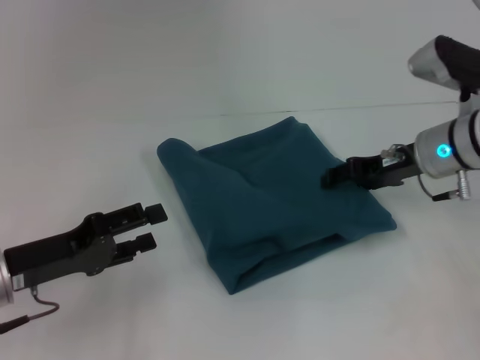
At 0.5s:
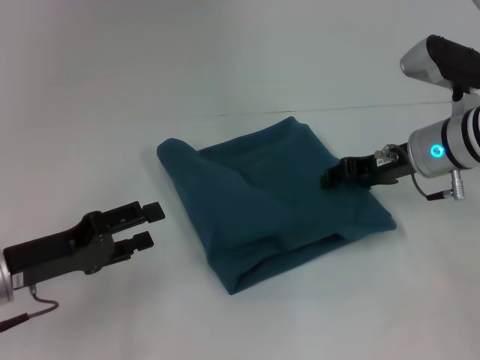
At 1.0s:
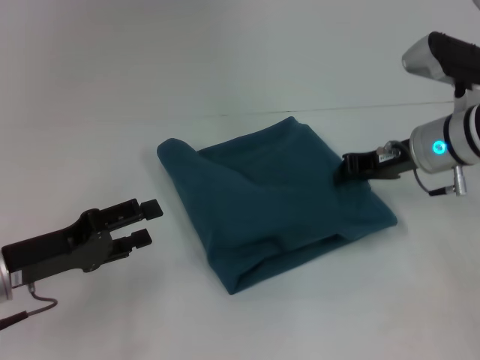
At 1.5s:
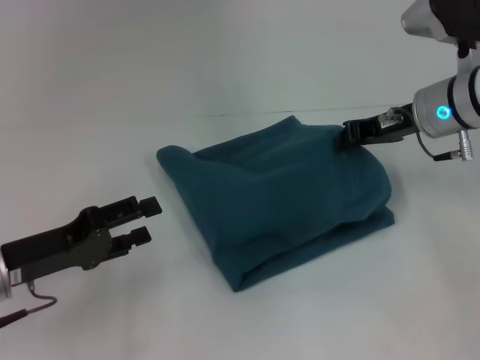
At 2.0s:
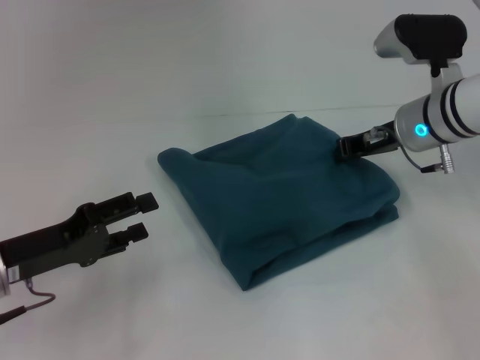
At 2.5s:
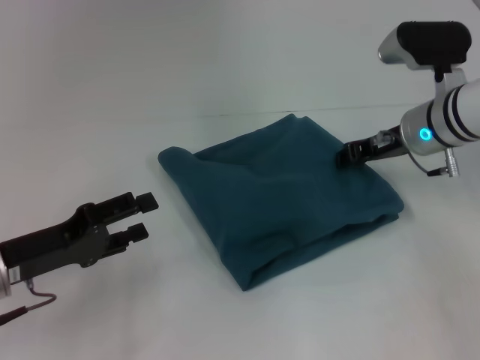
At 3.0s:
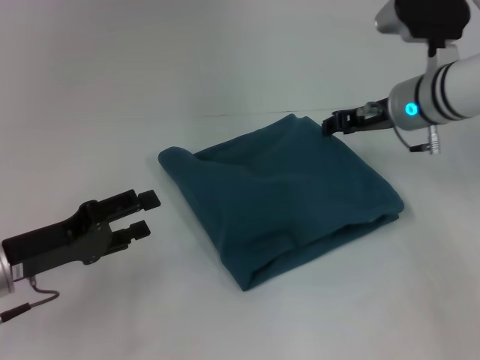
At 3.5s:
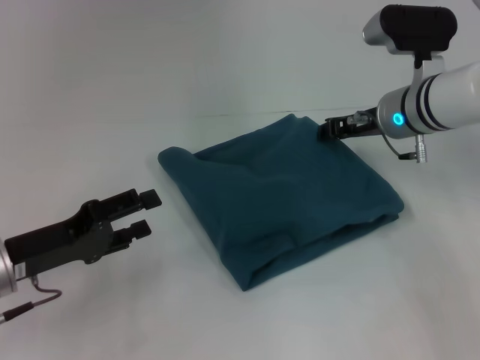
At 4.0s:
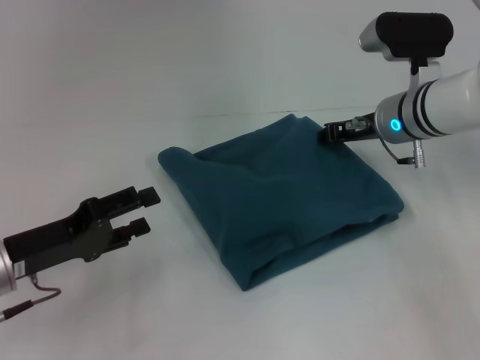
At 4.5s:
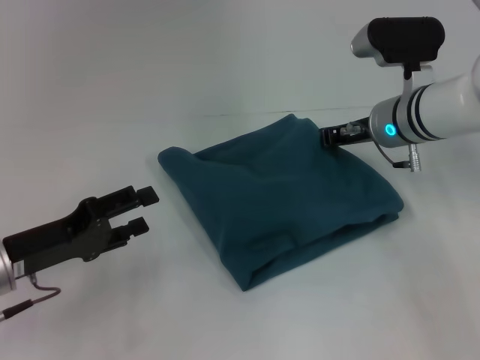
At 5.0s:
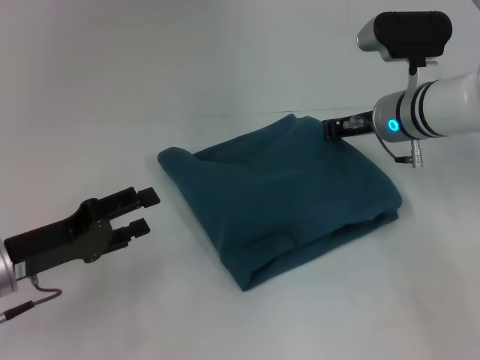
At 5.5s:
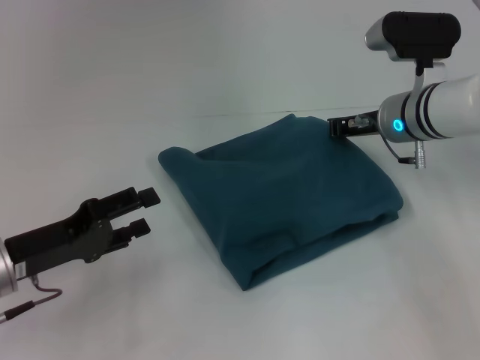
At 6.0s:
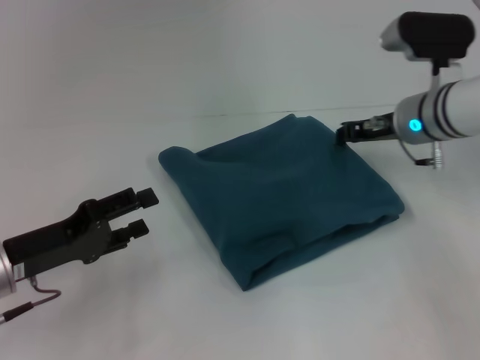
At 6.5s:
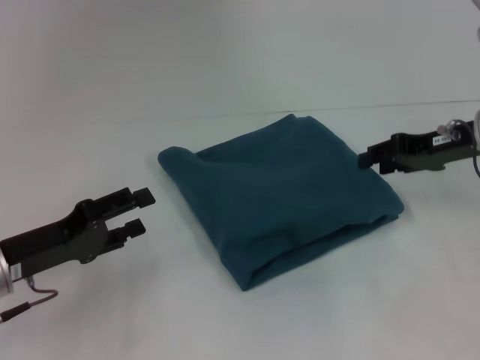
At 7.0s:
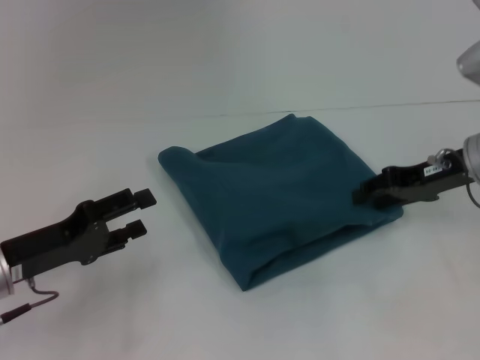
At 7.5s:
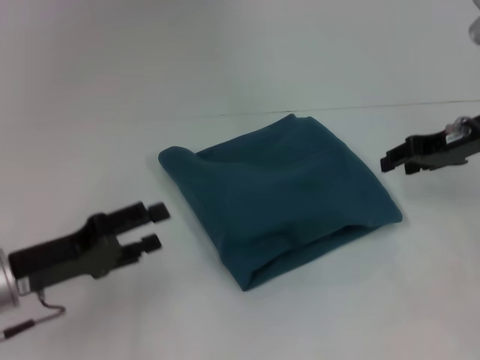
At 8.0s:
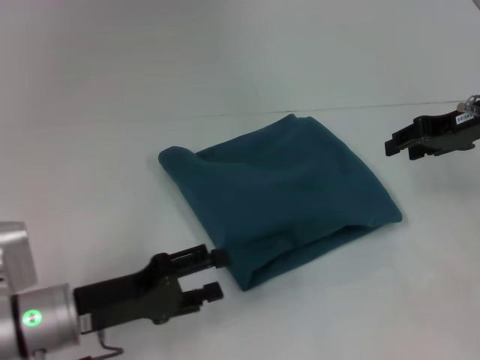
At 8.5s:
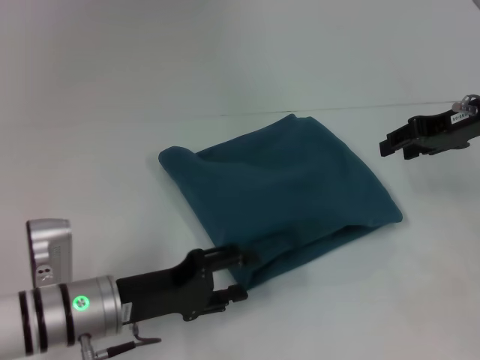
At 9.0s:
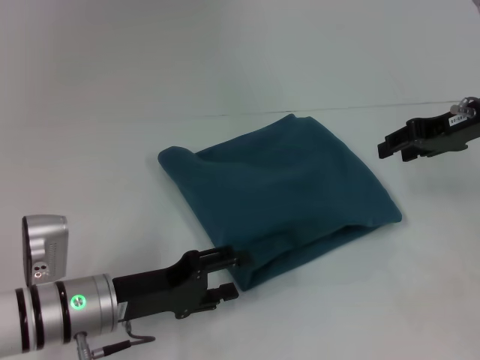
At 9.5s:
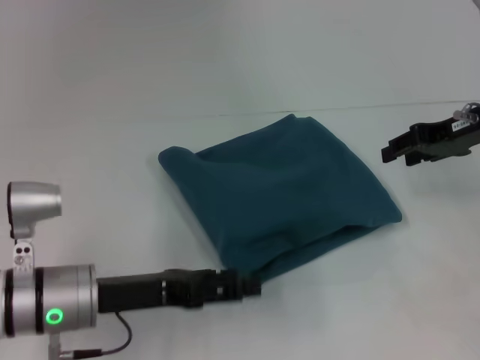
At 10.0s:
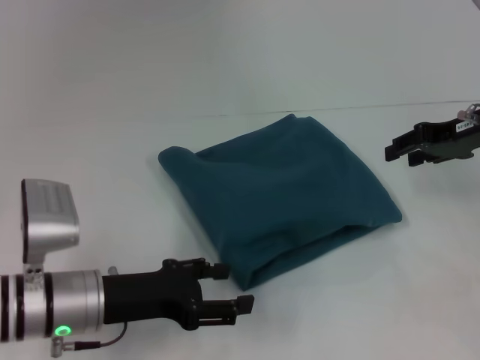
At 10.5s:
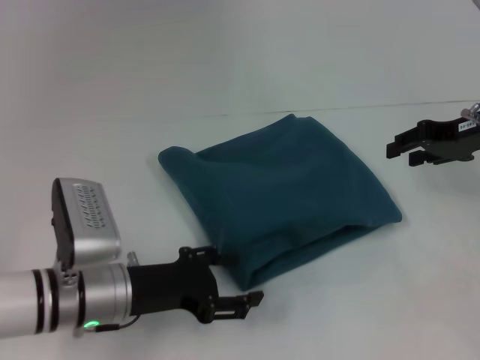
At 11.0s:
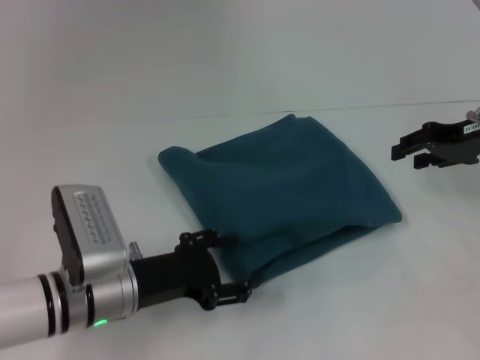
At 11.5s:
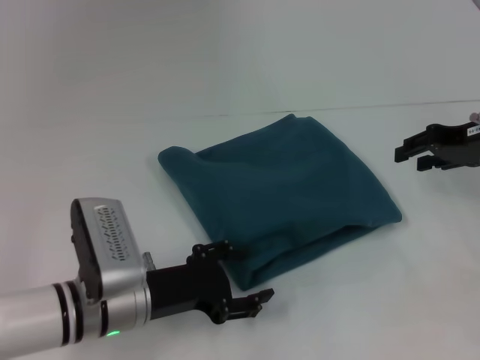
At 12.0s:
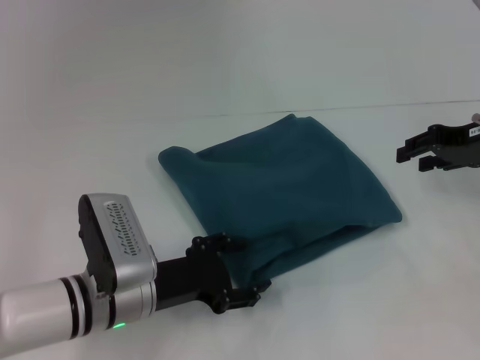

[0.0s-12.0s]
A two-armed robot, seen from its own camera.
0.0s to 2.0s: The right gripper closes.
2.0s to 4.0s: The right gripper opens.
4.0s to 6.0s: The right gripper closes its fingers.
6.0s to 8.0s: The left gripper goes some 5 cm to the right. Meanwhile the right gripper shifts roughly 10 cm to the right and upward, and opens its fingers.
10.0s to 12.0s: The left gripper ends up approximately 5 cm from where it was.

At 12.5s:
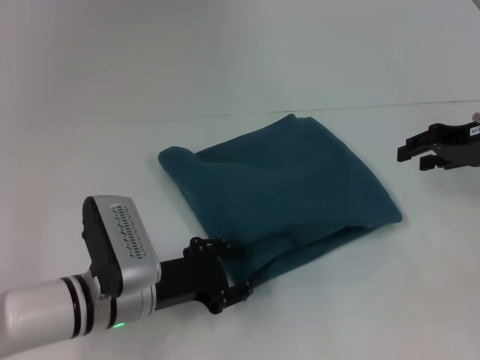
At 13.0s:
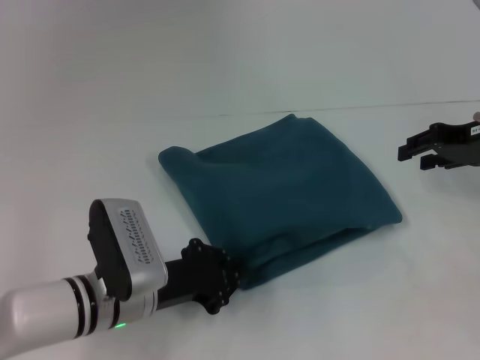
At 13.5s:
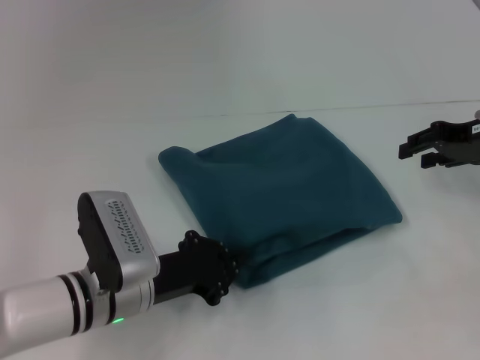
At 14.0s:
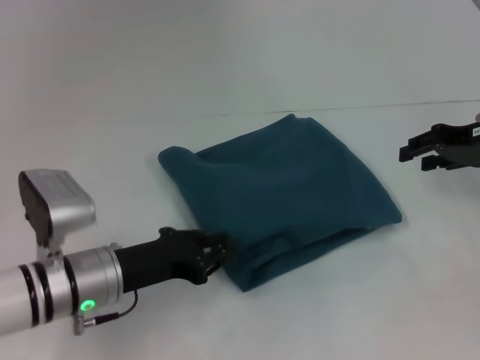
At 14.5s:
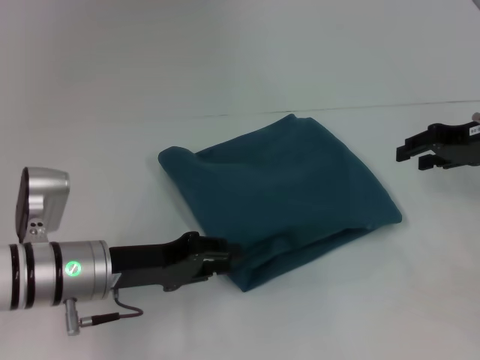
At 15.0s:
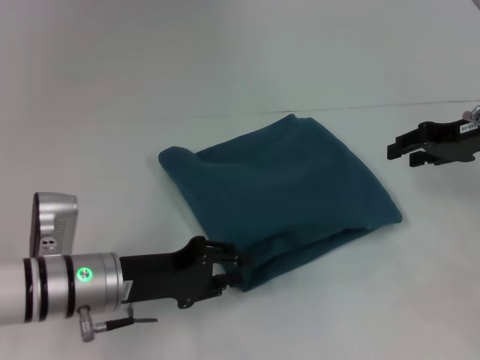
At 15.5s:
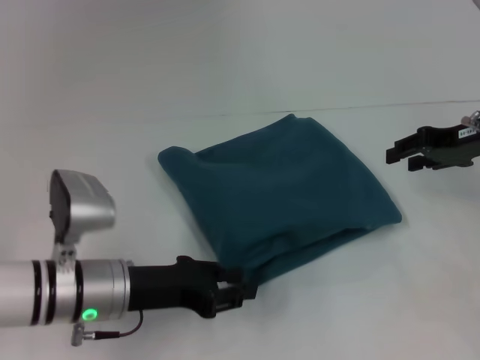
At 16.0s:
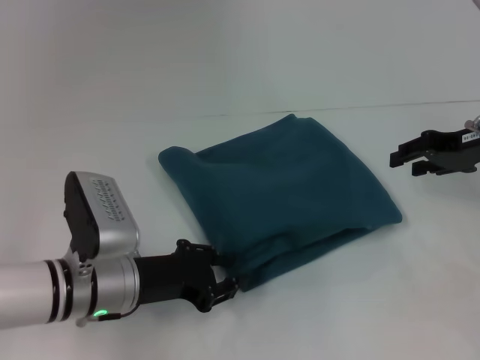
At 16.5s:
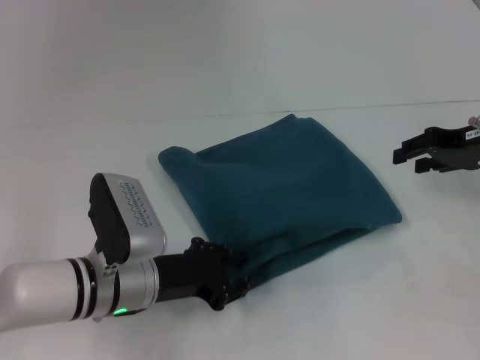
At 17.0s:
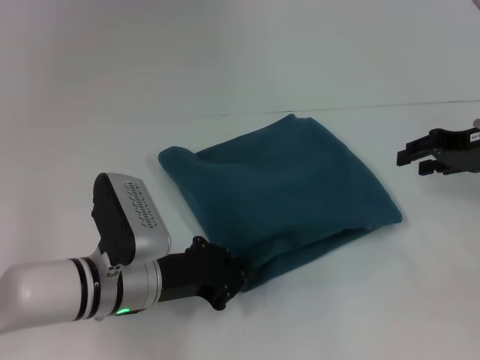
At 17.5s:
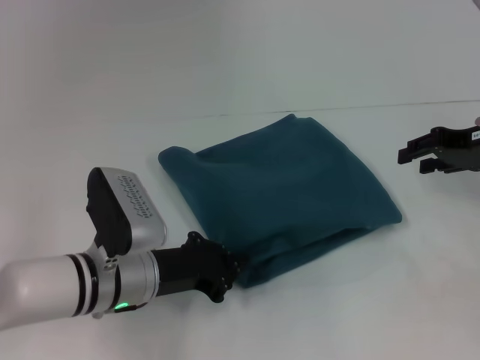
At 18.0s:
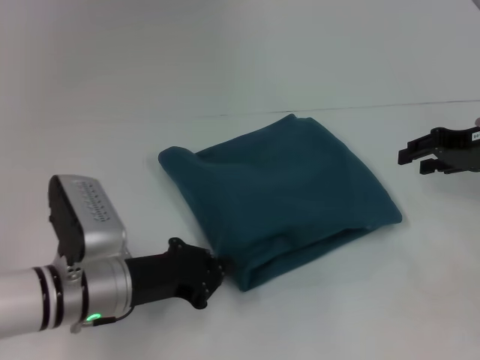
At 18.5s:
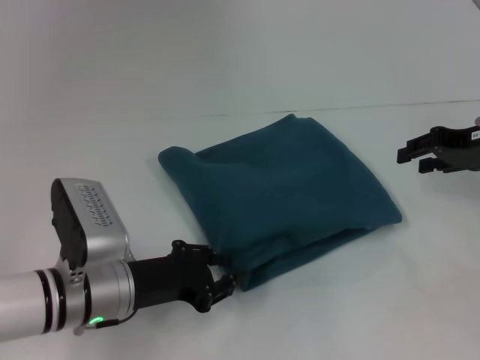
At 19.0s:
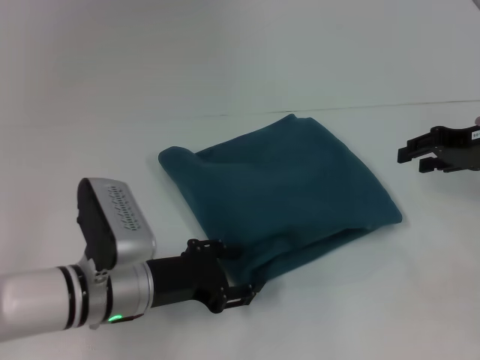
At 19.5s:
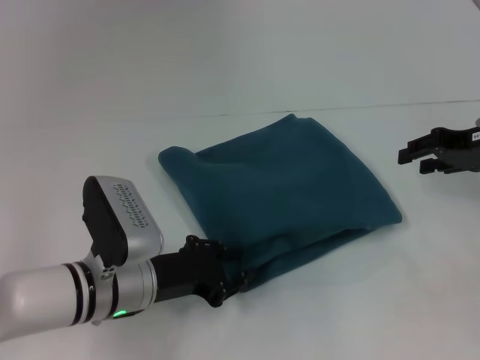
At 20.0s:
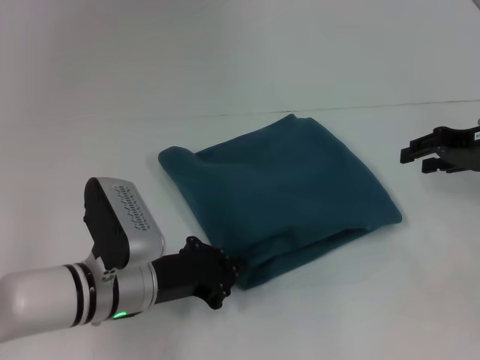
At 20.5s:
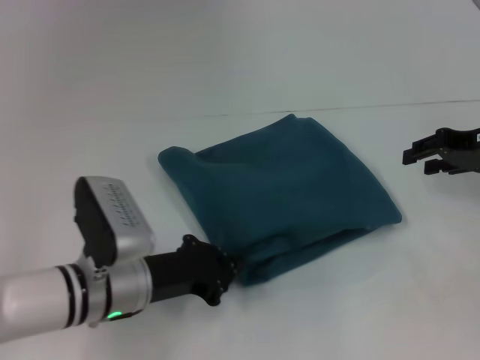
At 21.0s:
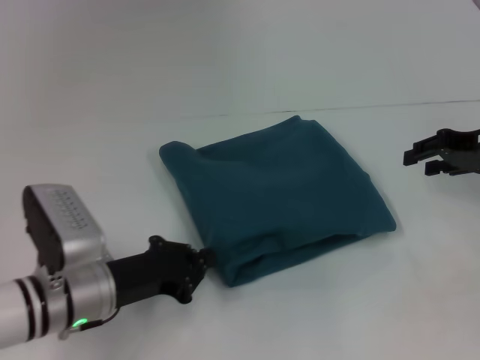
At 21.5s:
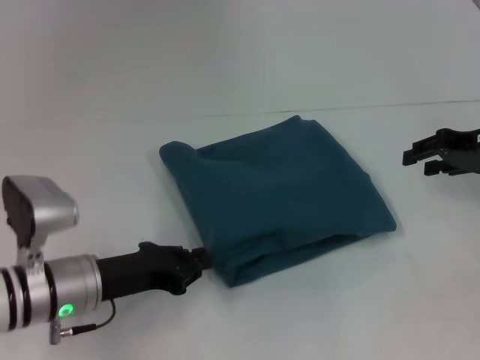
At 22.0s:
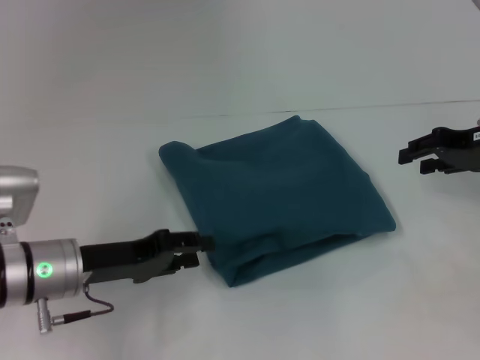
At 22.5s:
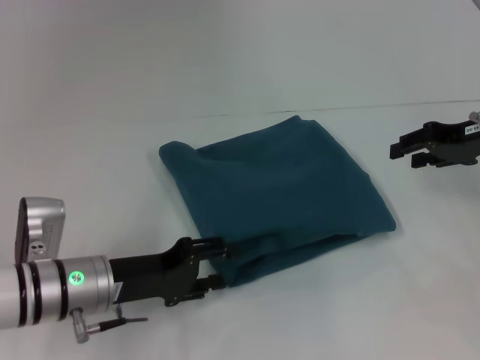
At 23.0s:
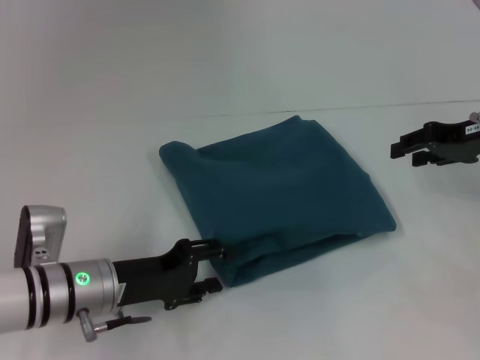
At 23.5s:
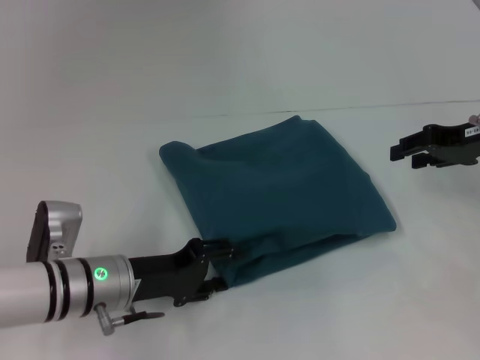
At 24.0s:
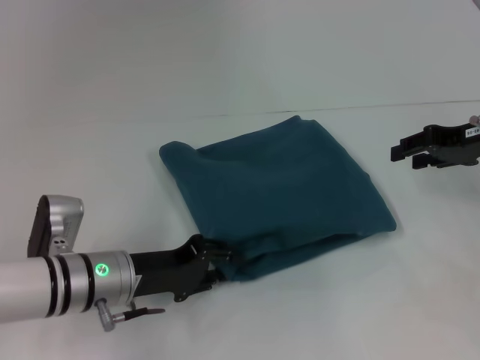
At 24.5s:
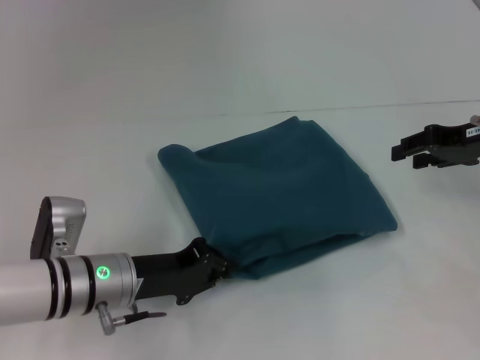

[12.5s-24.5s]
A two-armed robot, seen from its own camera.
12.5s to 14.5s: The left gripper ends up approximately 5 cm from where it was, and closes.
14.5s to 16.5s: The left gripper changes place by roughly 5 cm.
16.5s to 18.5s: The grippers stay close to where they were, moving slightly.
18.5s to 20.5s: The left gripper opens, then closes again.
20.5s to 22.5s: The left gripper opens up.
22.5s to 24.5s: The left gripper closes up.

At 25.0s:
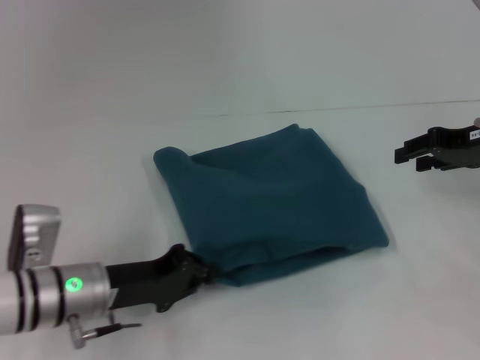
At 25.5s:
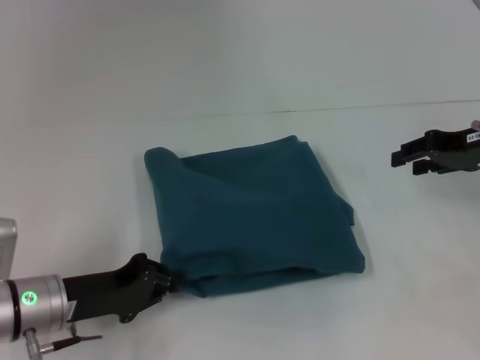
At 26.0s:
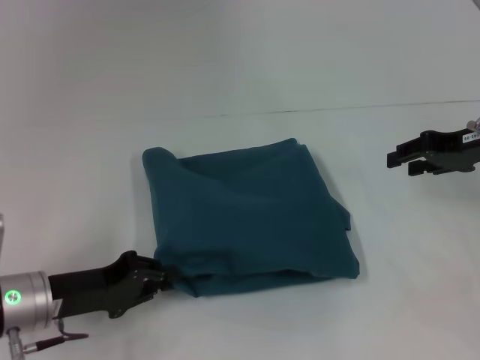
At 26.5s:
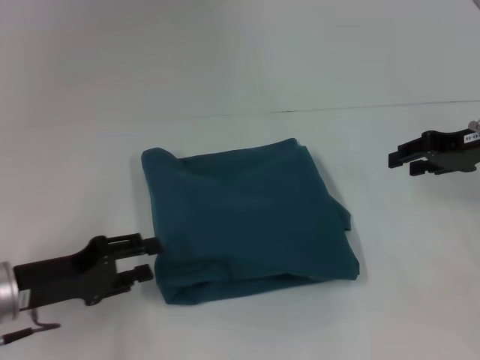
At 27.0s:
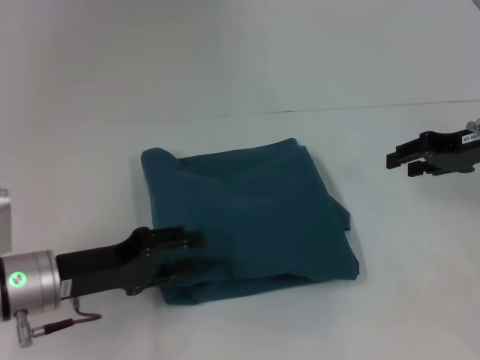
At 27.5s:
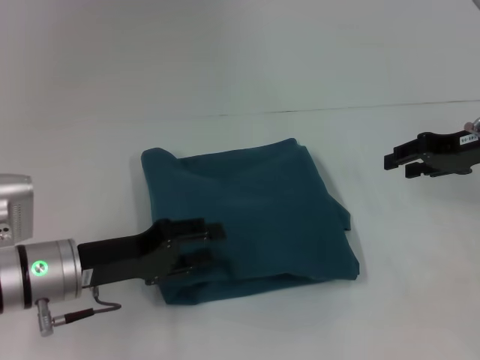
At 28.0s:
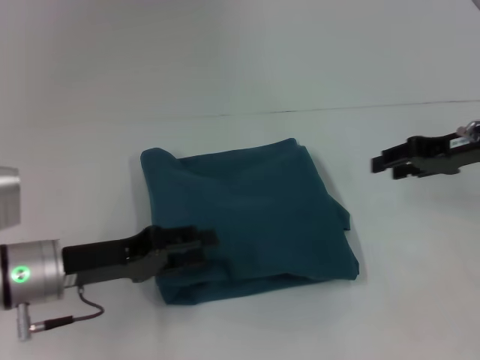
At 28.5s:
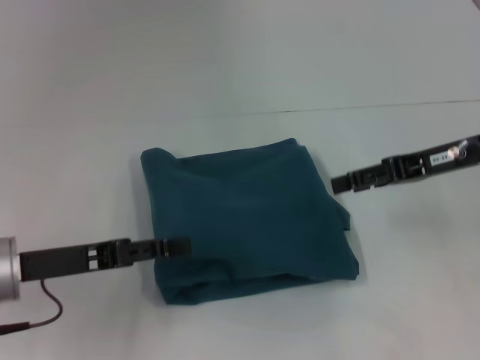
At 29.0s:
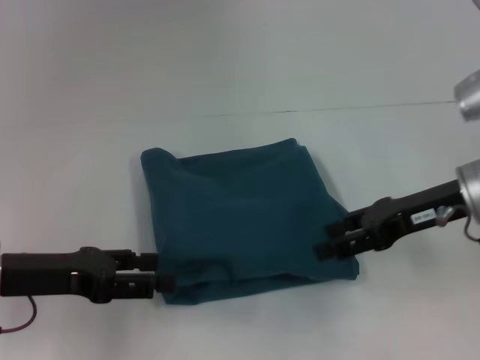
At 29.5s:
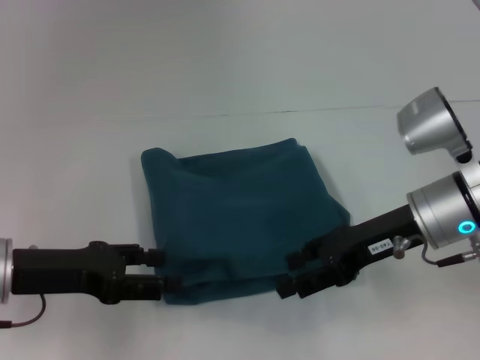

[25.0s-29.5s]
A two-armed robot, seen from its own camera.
25.0s to 27.0s: The left gripper opens up.
27.0s to 29.5s: The right gripper is displaced to the left and backward by some 10 cm. The left gripper shifts by about 5 cm.
